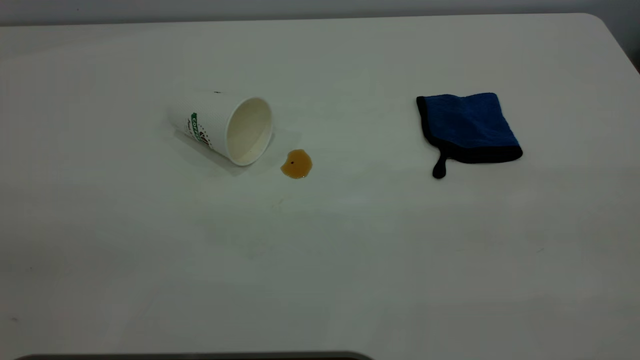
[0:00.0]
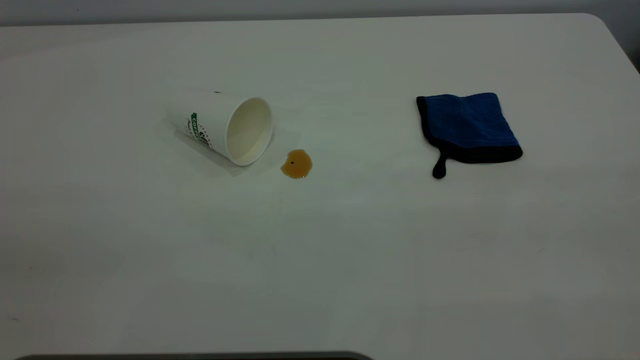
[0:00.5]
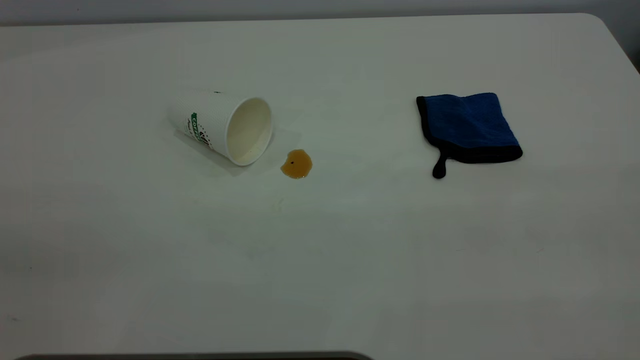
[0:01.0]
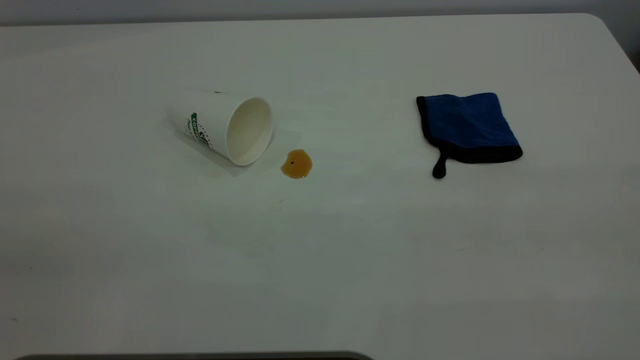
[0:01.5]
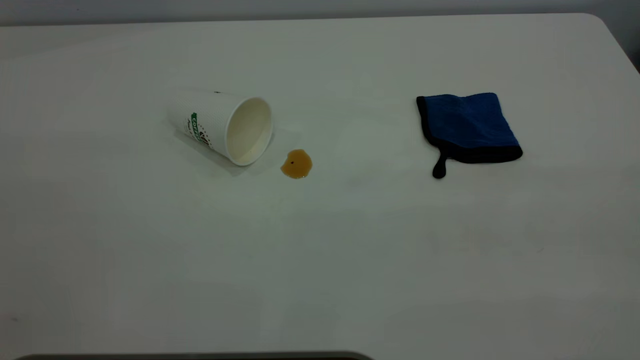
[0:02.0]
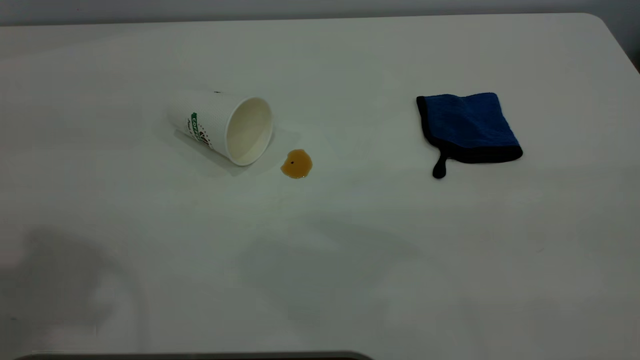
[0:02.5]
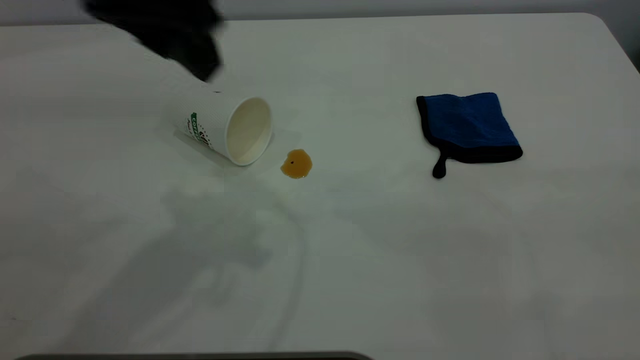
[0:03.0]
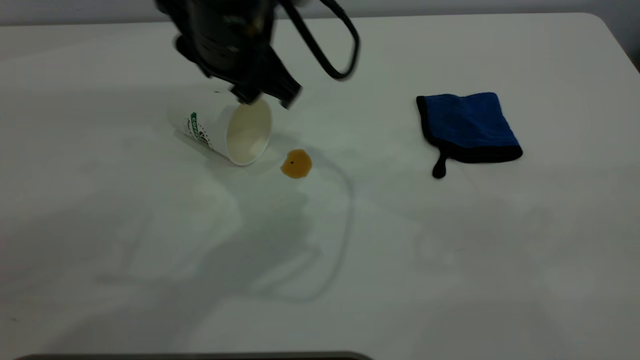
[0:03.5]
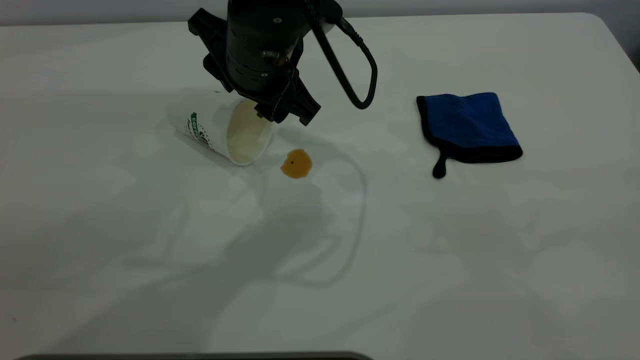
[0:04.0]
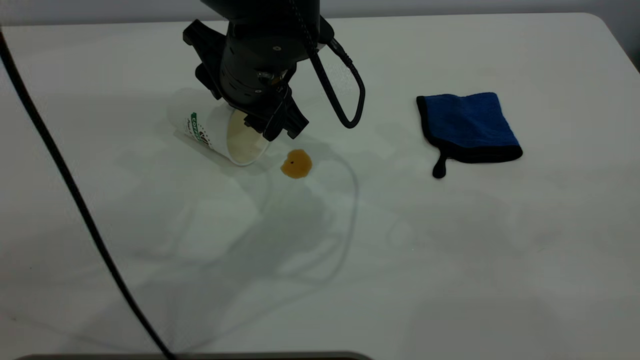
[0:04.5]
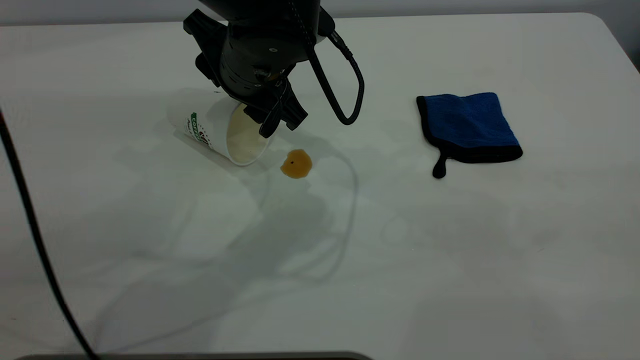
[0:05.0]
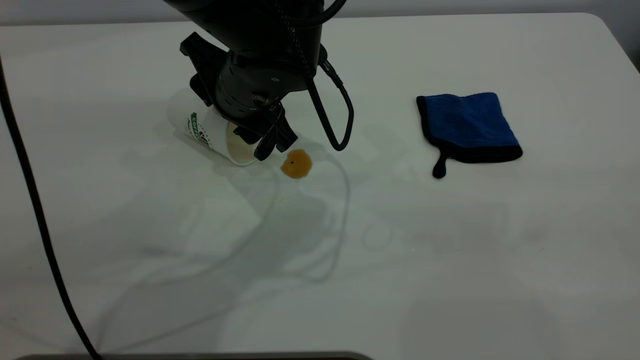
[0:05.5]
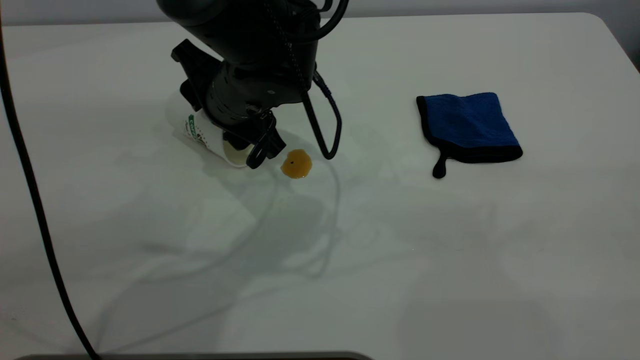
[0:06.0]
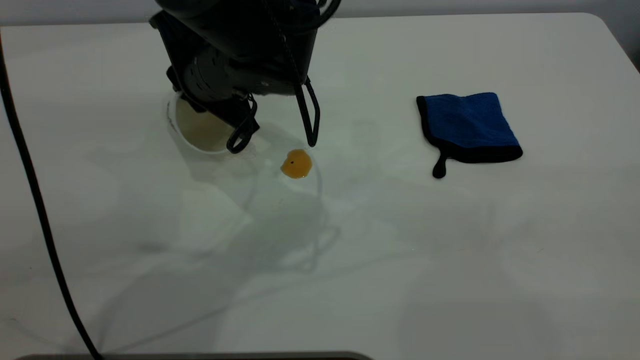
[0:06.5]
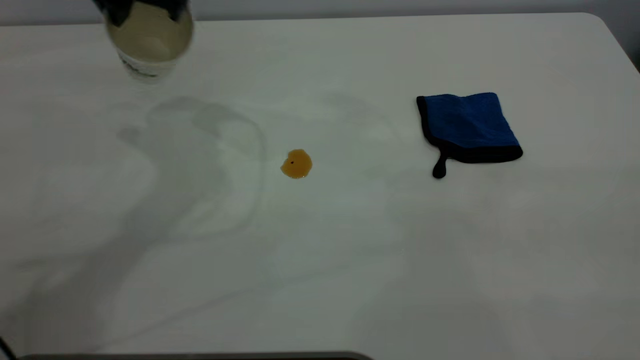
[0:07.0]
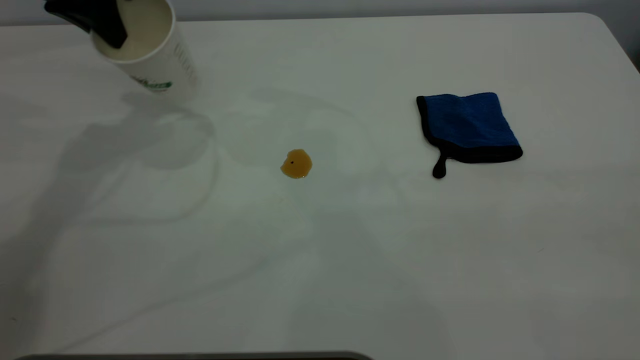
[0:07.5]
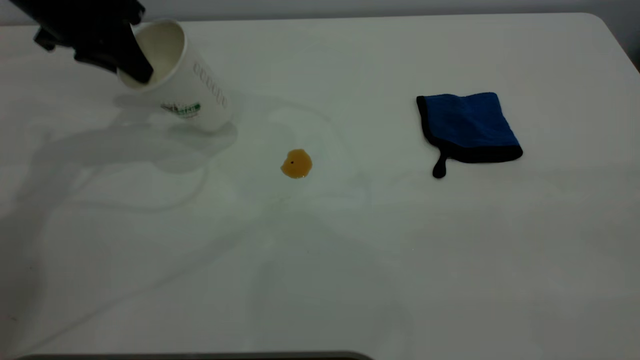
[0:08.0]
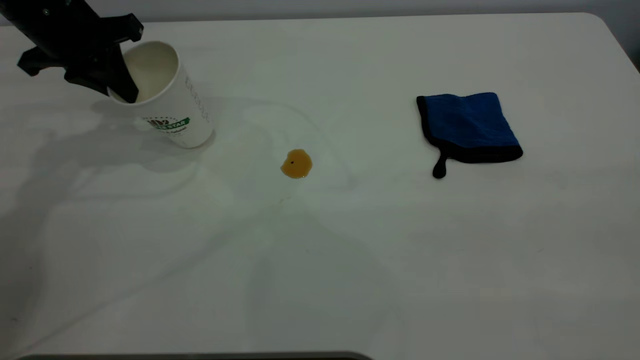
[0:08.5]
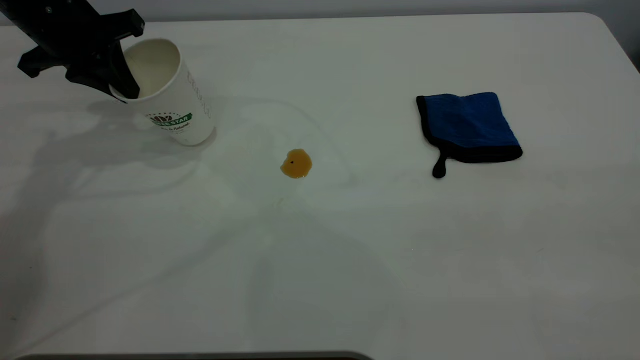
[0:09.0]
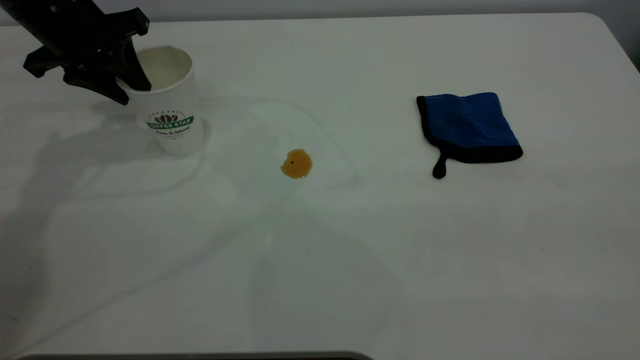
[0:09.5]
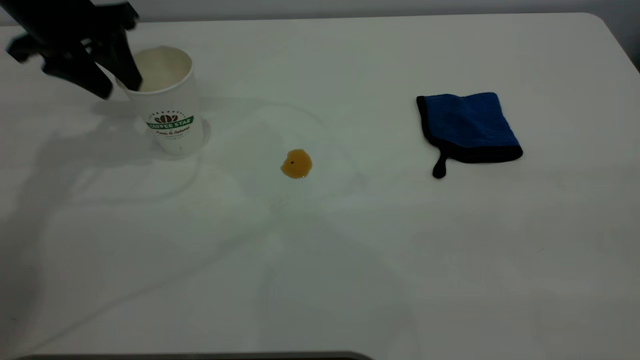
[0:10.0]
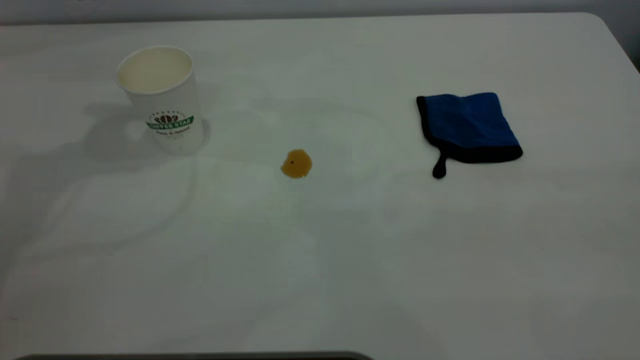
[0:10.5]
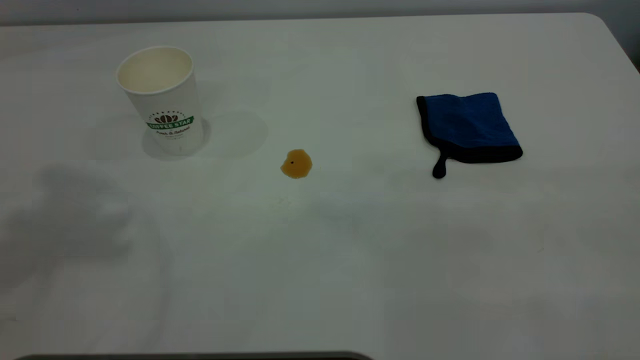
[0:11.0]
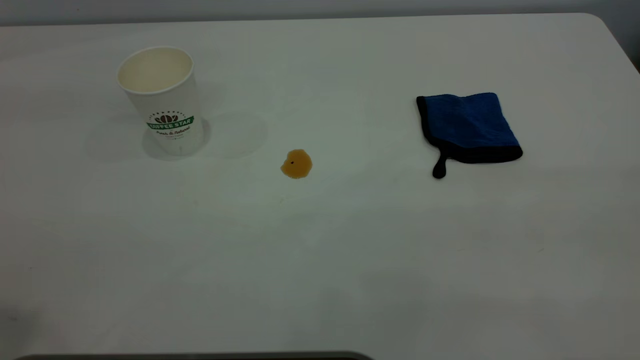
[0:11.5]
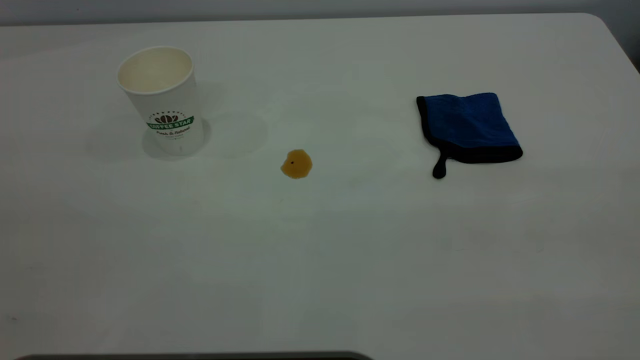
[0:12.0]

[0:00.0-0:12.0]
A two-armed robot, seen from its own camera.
Task of the whole recording: the left gripper pick up the fallen cup and place it upright, the right gripper grasp the blue rag and wipe the tea stain on the table, the right gripper put the blue rag back in its original position.
Step, 0:00.0 to 0:10.0: Stand the paper cup upright.
0:02.0 to 0:04.0: The left gripper heads forward, to the right and downward, covering about 40 cm.
0:04.0 to 0:06.0: The left gripper shifts approximately 5 cm downward.
0:06.0 to 0:08.0: The left gripper travels to the left by roughly 20 cm, and closes up.
0:08.0 to 0:10.0: The left gripper opens up.
0:10.0 to 0:12.0: The left gripper is displaced backward and upward by some 40 cm.

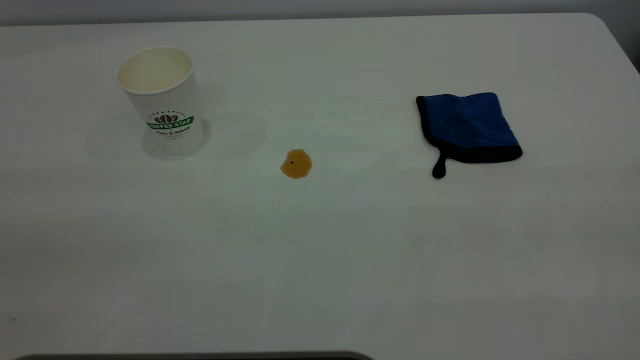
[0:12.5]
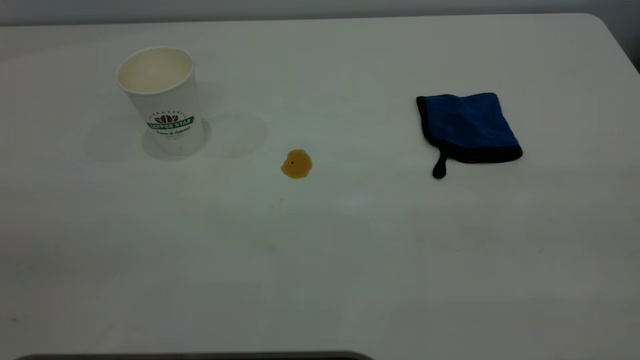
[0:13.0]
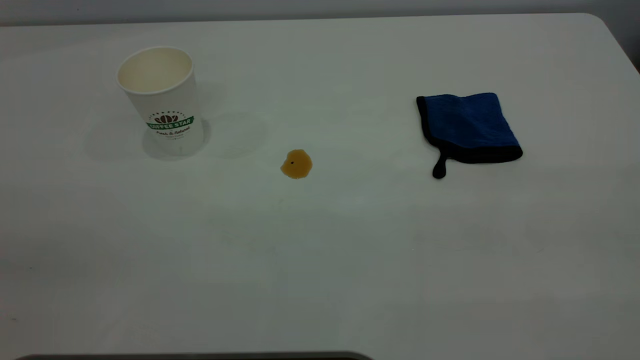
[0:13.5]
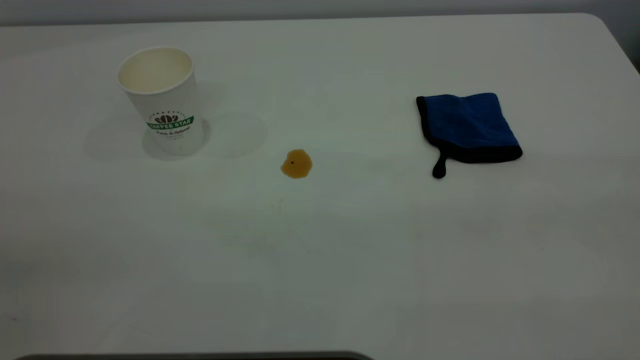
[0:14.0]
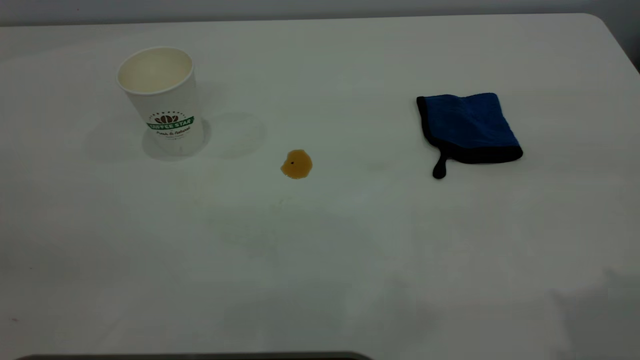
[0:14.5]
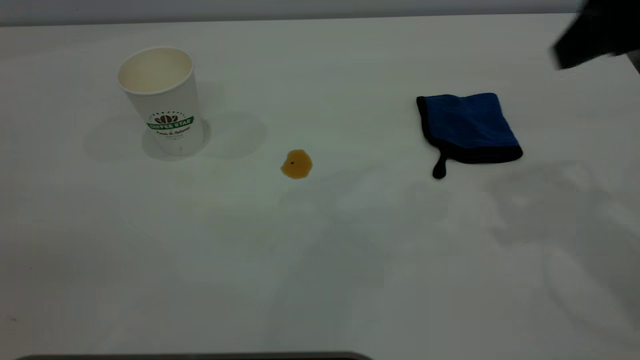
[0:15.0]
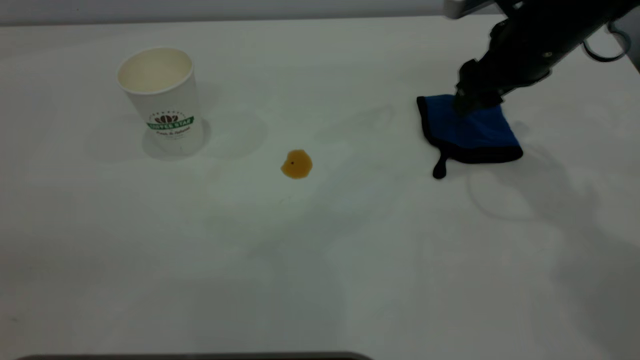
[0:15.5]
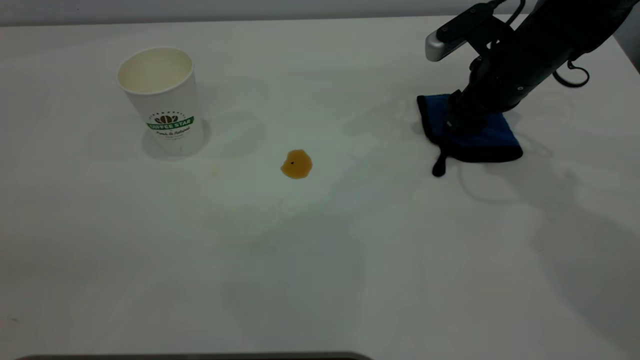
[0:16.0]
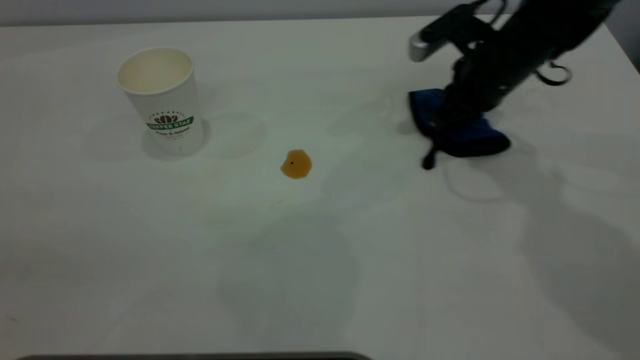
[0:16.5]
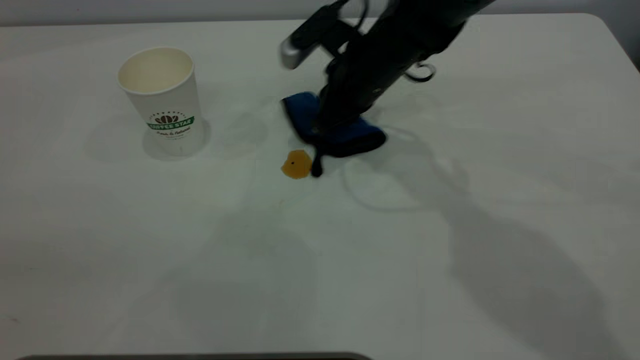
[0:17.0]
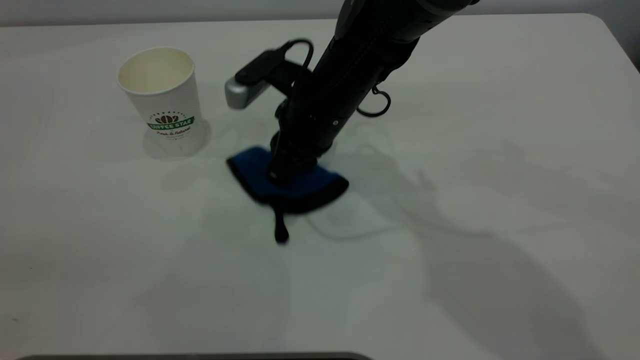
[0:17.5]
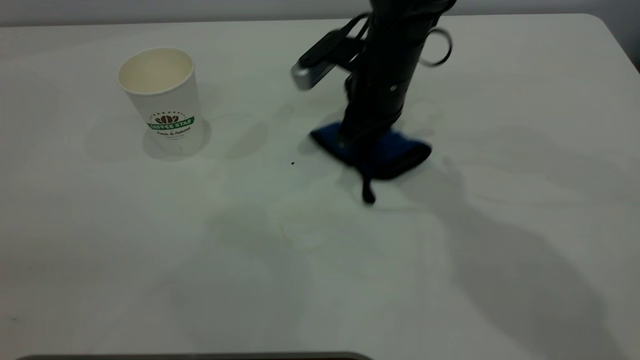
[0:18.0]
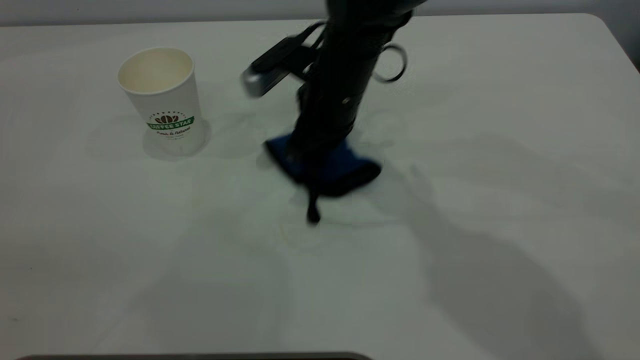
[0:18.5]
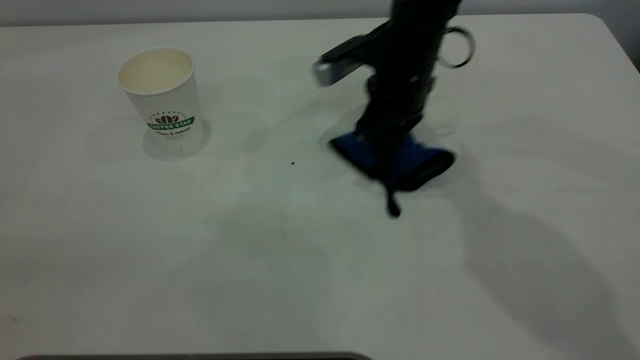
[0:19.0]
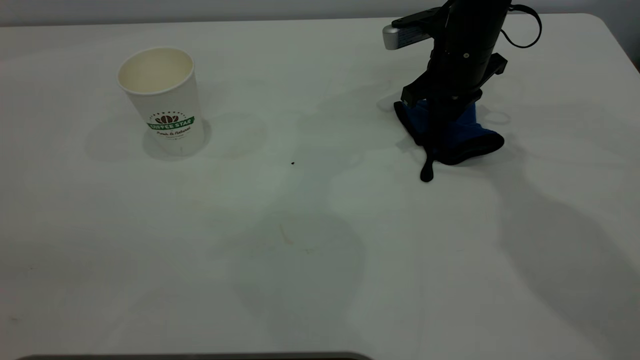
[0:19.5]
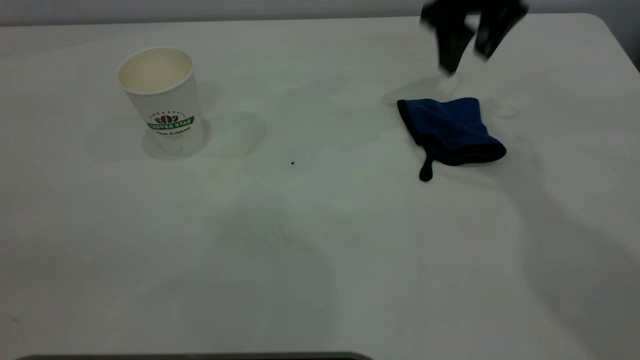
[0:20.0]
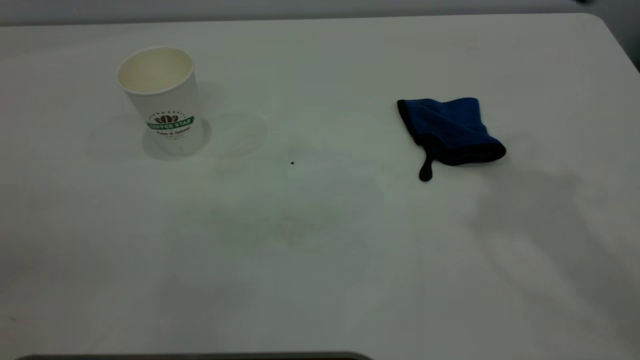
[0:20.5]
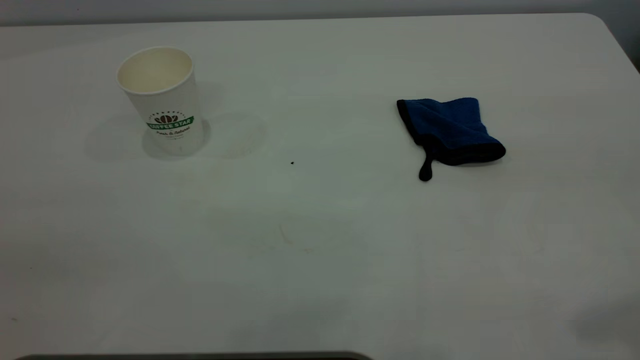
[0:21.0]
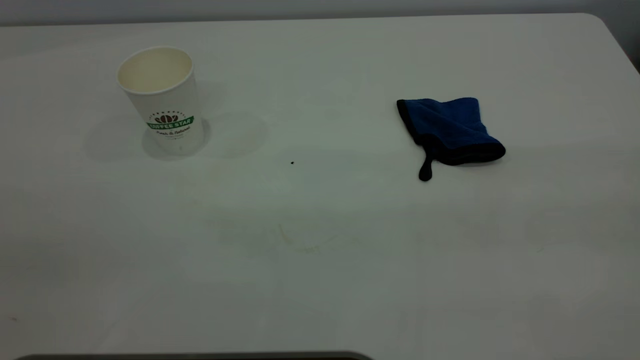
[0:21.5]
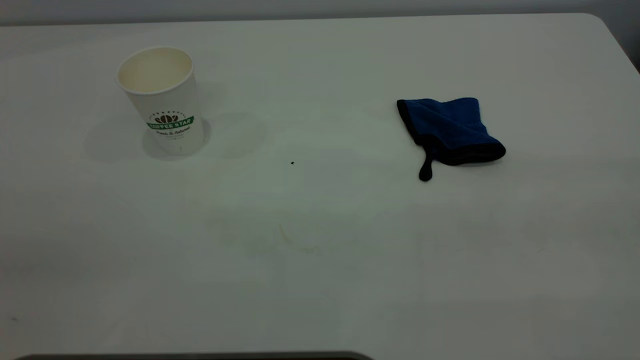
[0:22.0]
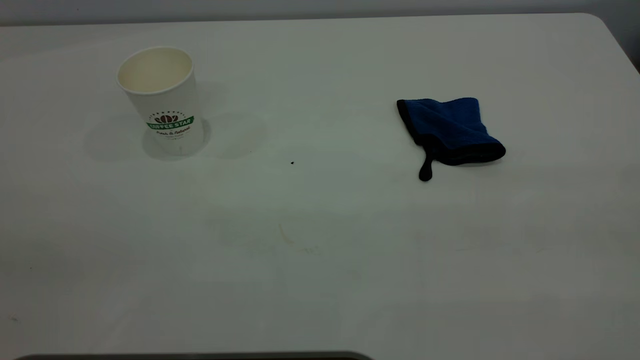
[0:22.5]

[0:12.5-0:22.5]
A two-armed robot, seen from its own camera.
Task of the whole recording: the left gripper pick up the fallen cup and place it upright, the right gripper grasp the blue rag and wipe the tea stain on the table, the right gripper put the blue rag back in its original position.
Step, 0:12.5 to 0:19.5: Wipe the stains off the table with a rag.
0:14.5 to 0:16.5: The right gripper shifts some 35 cm forward and downward, and closes its fingers.
0:16.5 to 0:18.5: The right gripper swings left and right, roughly 15 cm each way, with 2 reversals.
0:18.5 to 0:20.5: The right gripper goes approximately 35 cm upward and to the right, and opens.
